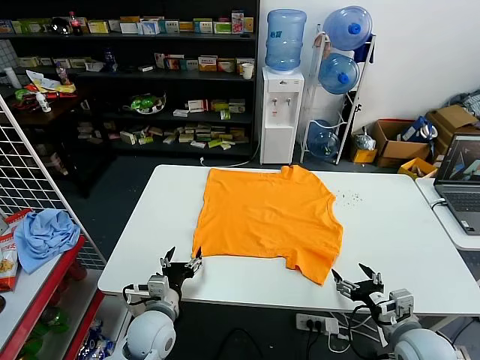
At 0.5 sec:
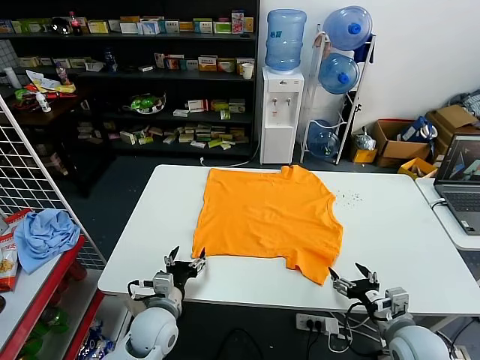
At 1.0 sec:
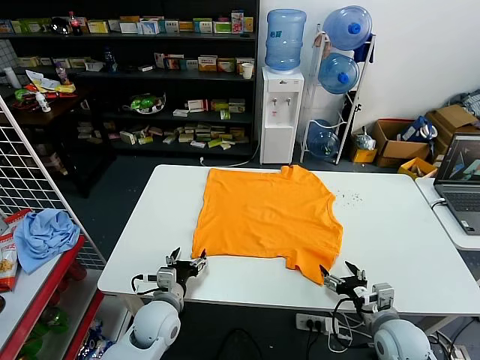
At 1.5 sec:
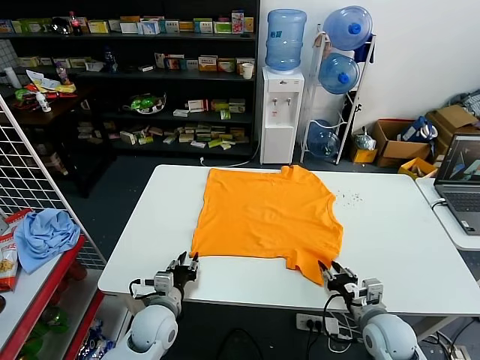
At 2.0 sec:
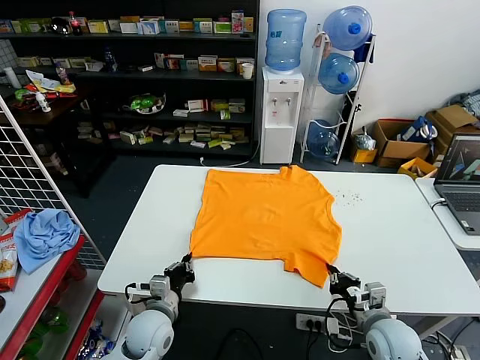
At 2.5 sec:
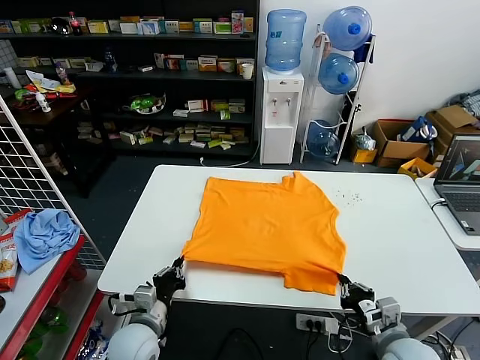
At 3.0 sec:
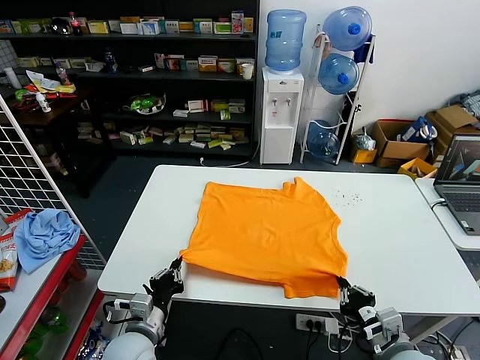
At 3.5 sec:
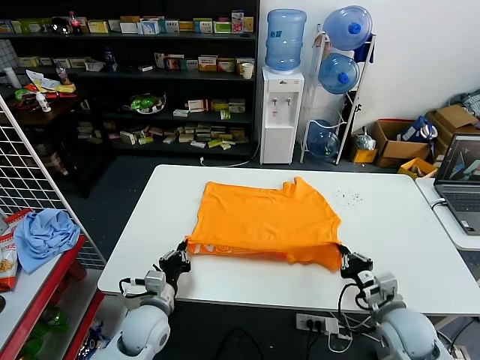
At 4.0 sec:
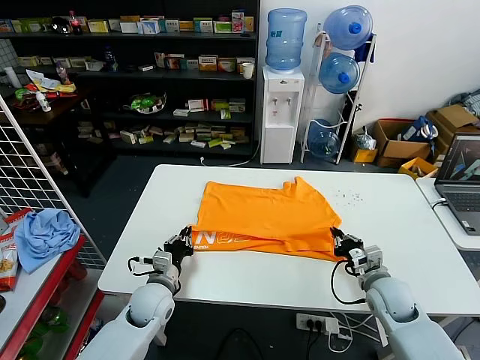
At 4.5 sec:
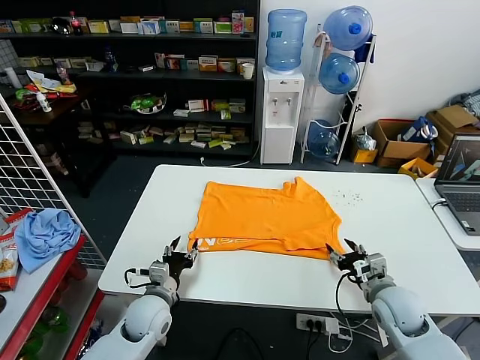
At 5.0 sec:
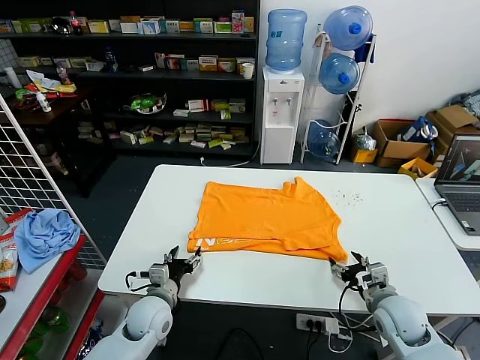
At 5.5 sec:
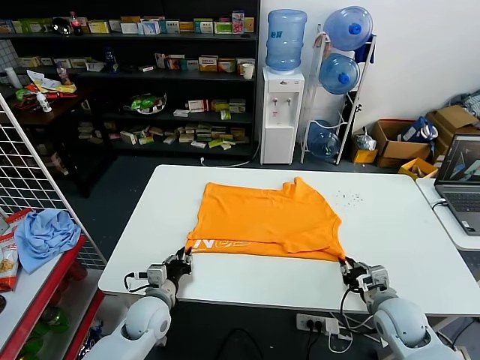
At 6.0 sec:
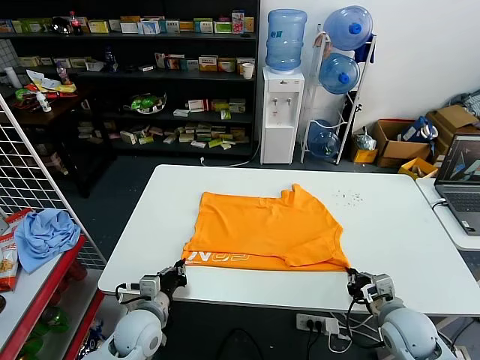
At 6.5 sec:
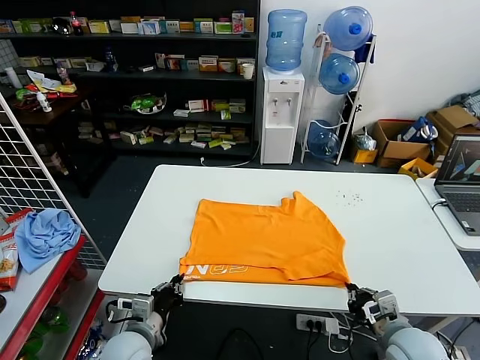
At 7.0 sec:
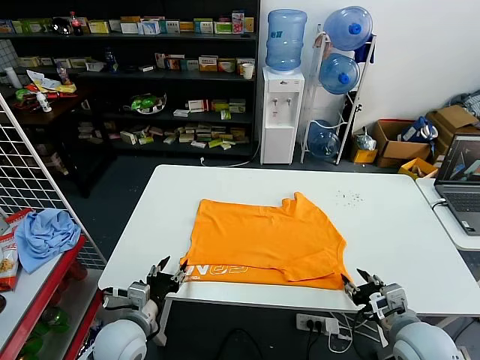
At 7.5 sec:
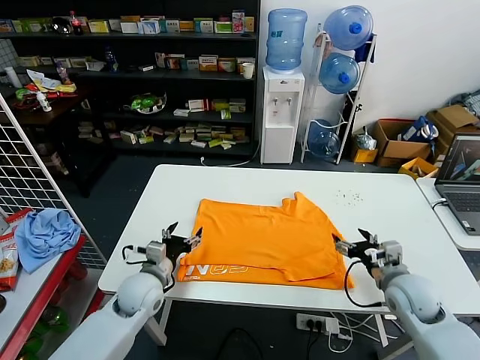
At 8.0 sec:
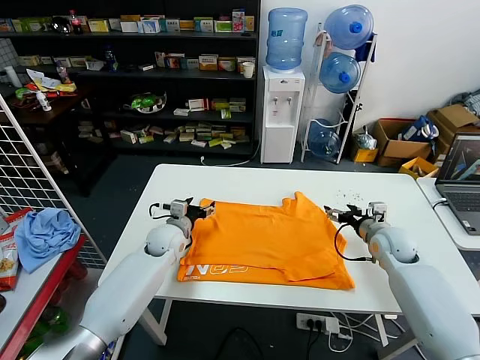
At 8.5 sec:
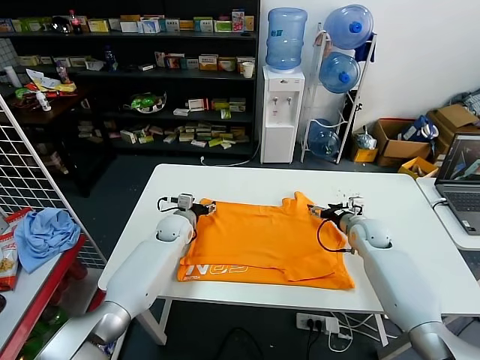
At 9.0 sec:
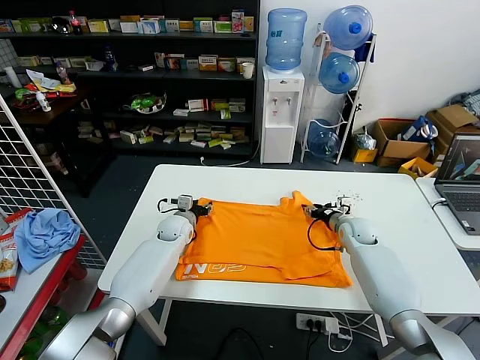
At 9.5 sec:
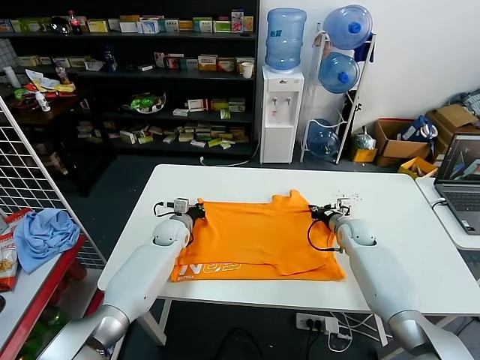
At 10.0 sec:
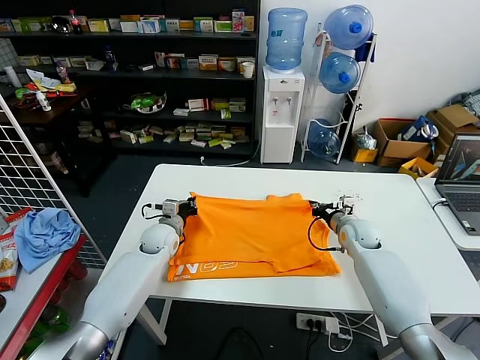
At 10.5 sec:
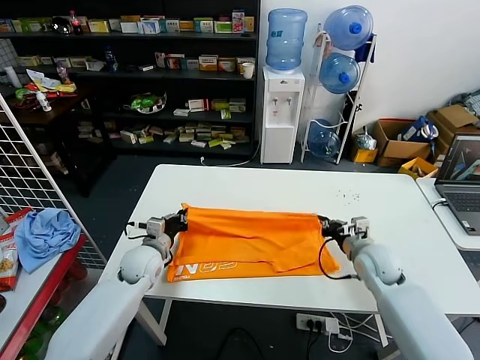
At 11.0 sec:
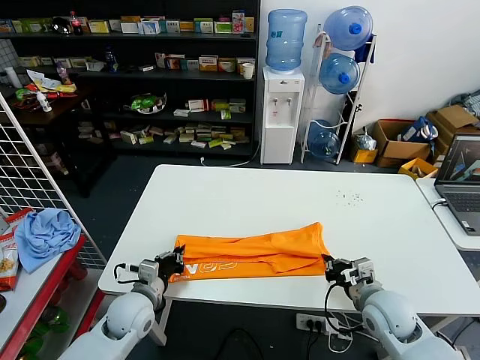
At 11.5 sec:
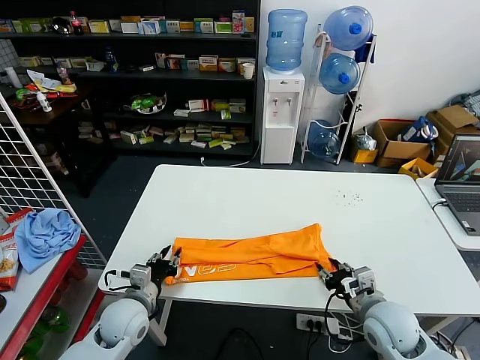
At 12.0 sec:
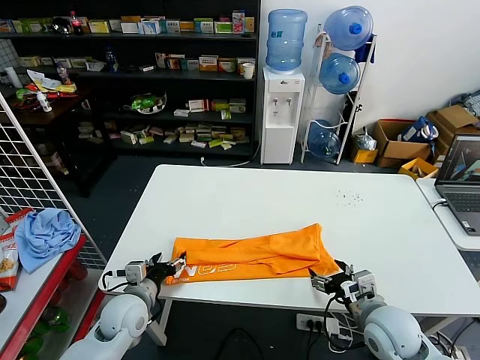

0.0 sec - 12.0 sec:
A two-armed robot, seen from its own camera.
Task of the whole recording: fold and organize the clothes.
Step, 0.0 sec - 2.0 sec: use both grippers simultaneously to clamp the lower edge of the clothing fabric.
Step, 2.5 sec - 4.0 sec: use both grippers to drag the lower edge of the fabric forward and fold it over the upper edge.
Step, 4.5 sec - 6.5 sec: Drag the clothes downward with both gripper.
Step, 7.0 sec - 9.5 sec: use both grippers simultaneously to clamp the upper edge of the clothing fabric.
Step, 10.0 sec - 11.5 sec: use both grippers to drag the upper edge of the fabric backward and fold it over the lower edge.
2.0 sec - 4.0 sec: The left gripper moves forward, about 5 cm, while the right gripper heads forward, covering approximately 10 cm.
4.0 sec - 6.0 sec: Both grippers travel together backward, about 5 cm. The left gripper opens, then closes once more. Meanwhile the right gripper opens, then closes again.
6.0 sec - 8.0 sec: The grippers both shift forward by approximately 20 cm. The right gripper opens, while the left gripper opens.
8.0 sec - 10.0 sec: The right gripper heads to the left, covering about 5 cm, and closes; the left gripper closes.
10.0 sec - 12.0 sec: Both grippers travel together backward, roughly 20 cm. The left gripper opens its fingers; the right gripper opens its fingers.

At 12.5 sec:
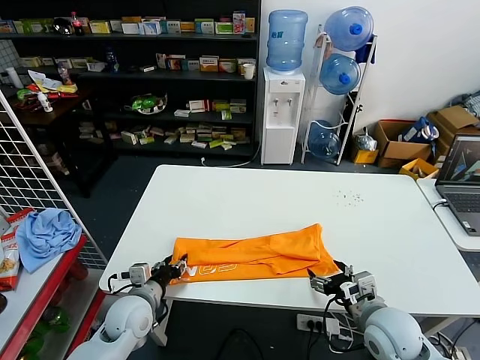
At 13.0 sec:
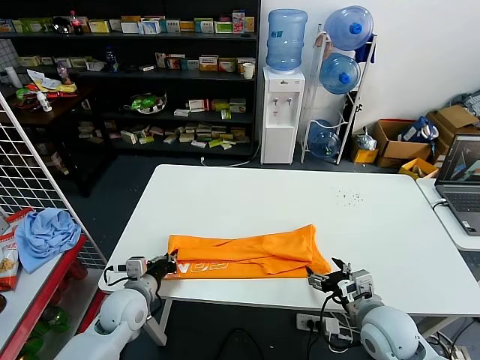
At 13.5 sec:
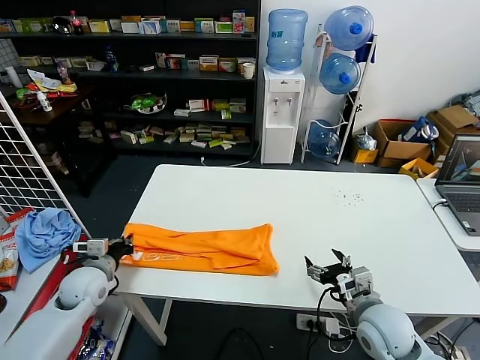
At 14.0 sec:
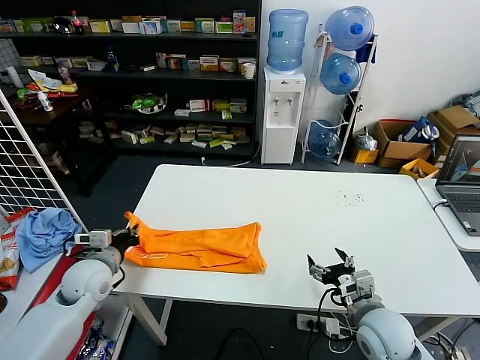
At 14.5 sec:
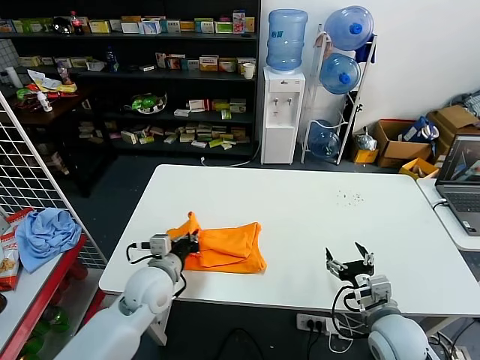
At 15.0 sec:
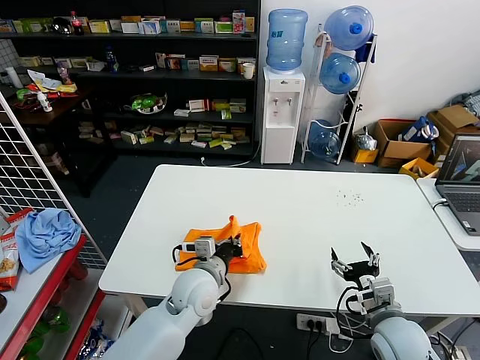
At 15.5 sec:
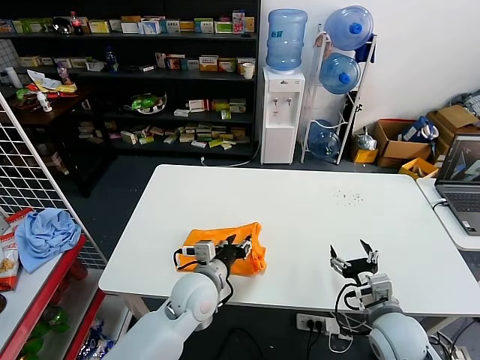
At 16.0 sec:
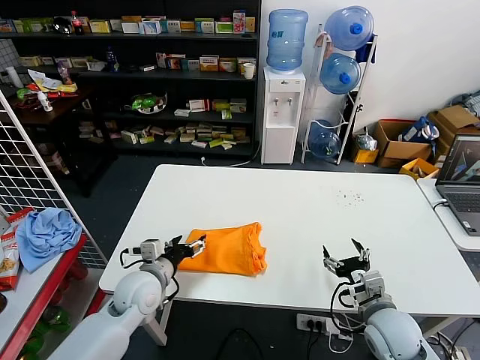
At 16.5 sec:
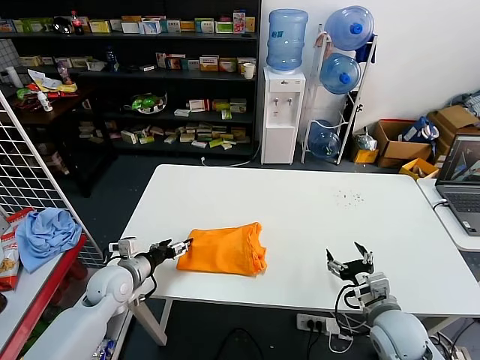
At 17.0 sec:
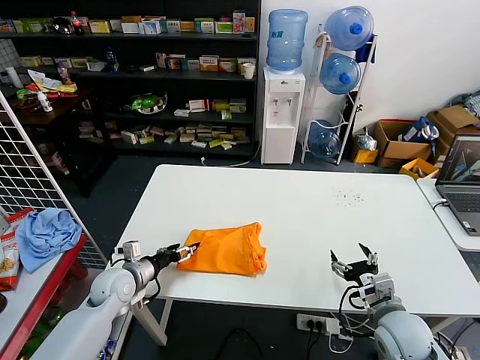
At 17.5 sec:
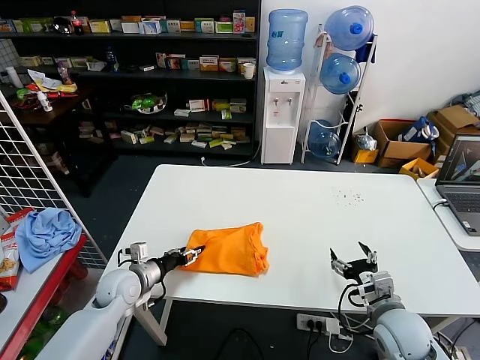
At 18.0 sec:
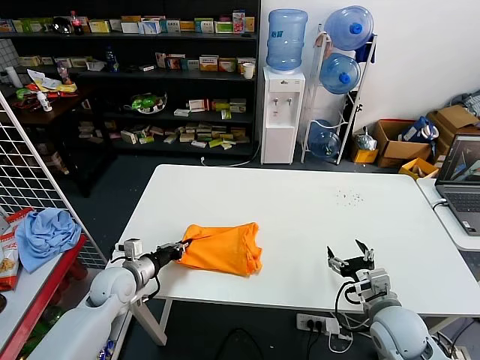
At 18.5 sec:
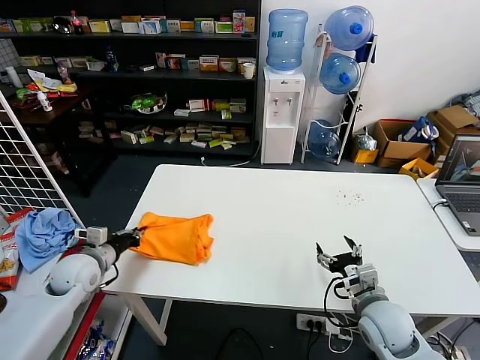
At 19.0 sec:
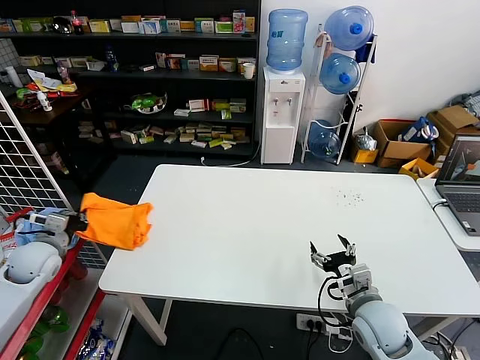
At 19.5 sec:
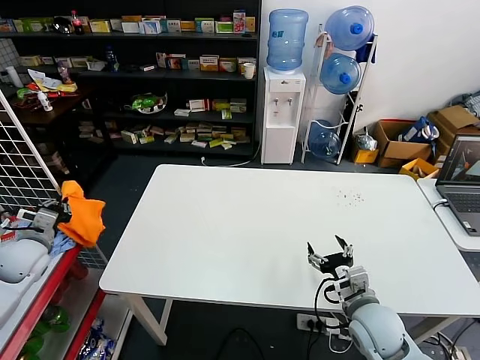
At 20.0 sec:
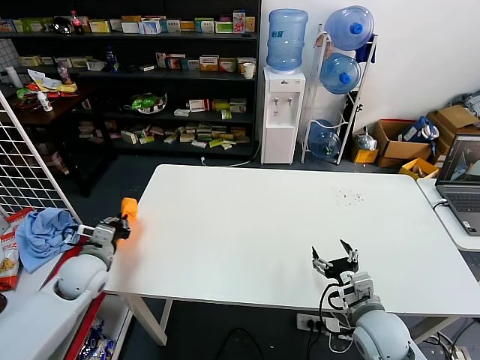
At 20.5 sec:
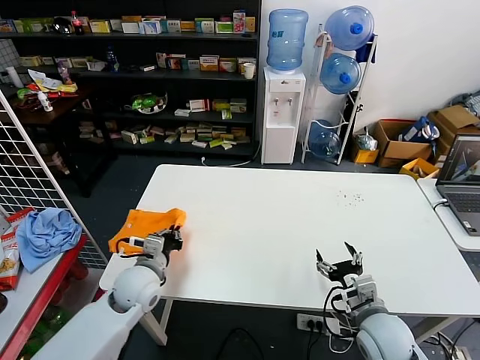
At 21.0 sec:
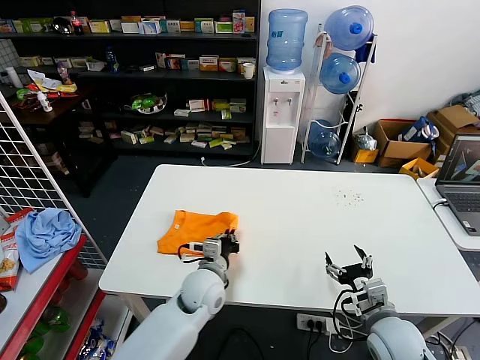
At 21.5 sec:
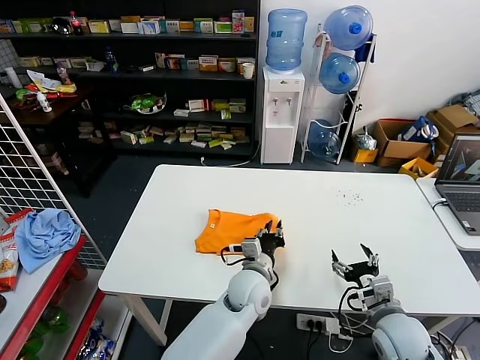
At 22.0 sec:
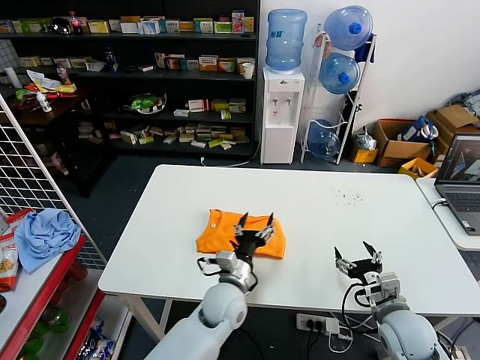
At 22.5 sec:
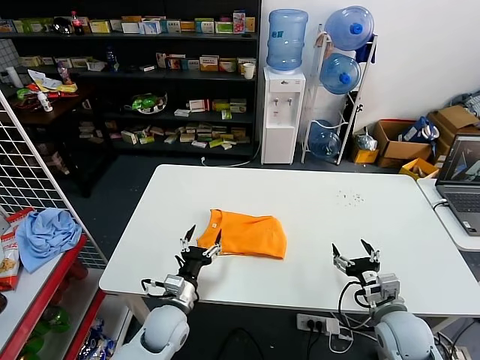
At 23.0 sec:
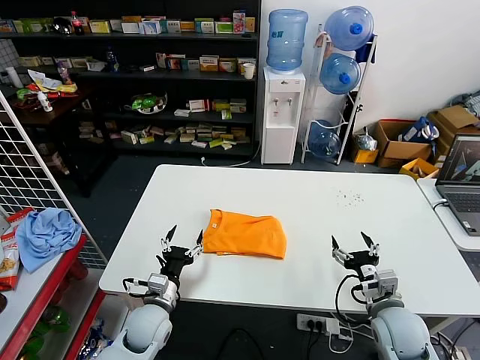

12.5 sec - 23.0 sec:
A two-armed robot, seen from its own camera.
Task of the whole recording: fold and organize the clothes.
Step, 13.5 sec - 15.0 sec: use the left gripper to drag the left edge of the fabric to the left and folds it over the right edge.
Step, 16.0 sec - 21.5 sec: Flip the folded clothes over with left gripper.
12.5 sec - 14.5 sec: The left gripper heads upward, covering approximately 10 cm, moves approximately 10 cm to the left and comes back, and closes up.
14.5 sec - 16.5 sec: The left gripper heads to the left, covering roughly 10 cm, and opens.
16.5 sec - 19.0 sec: The left gripper heads to the left, covering some 15 cm, and closes up.
19.0 sec - 21.0 sec: The left gripper travels to the right by roughly 35 cm.
21.0 sec - 23.0 sec: The left gripper travels to the left, downward and backward by about 15 cm, and opens up.
